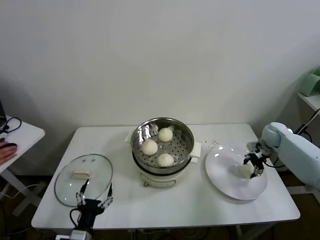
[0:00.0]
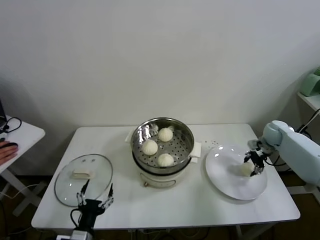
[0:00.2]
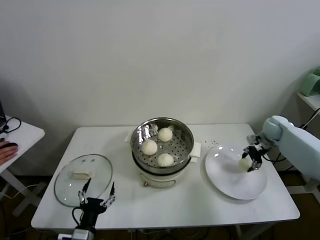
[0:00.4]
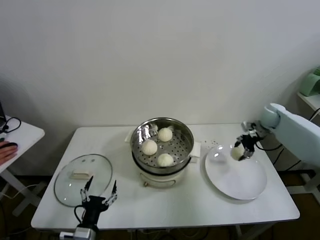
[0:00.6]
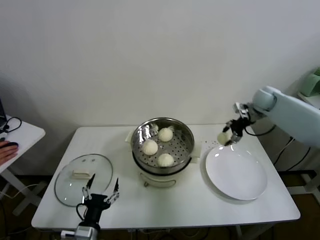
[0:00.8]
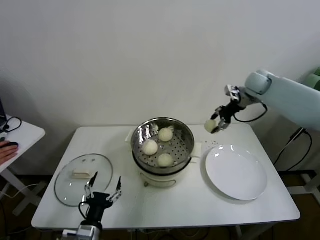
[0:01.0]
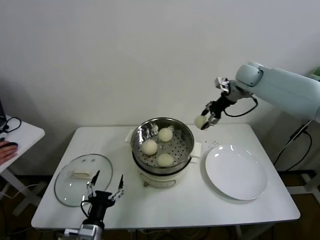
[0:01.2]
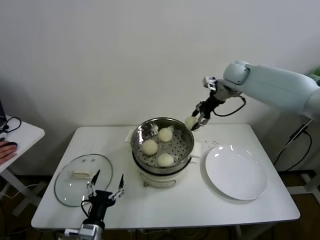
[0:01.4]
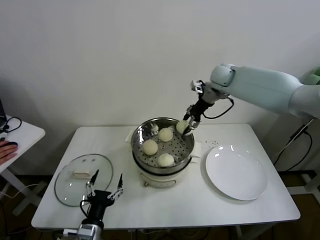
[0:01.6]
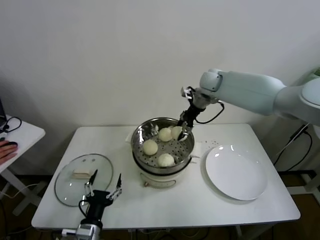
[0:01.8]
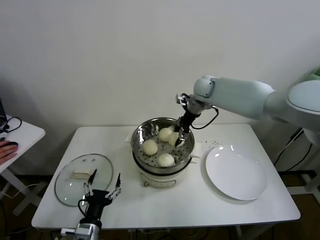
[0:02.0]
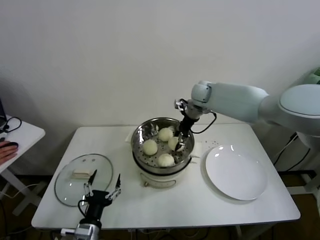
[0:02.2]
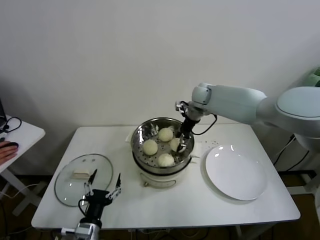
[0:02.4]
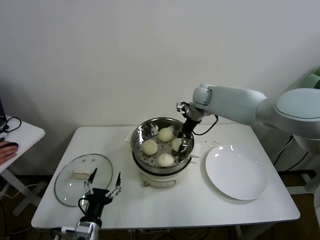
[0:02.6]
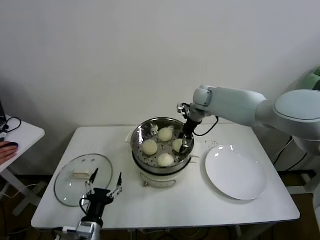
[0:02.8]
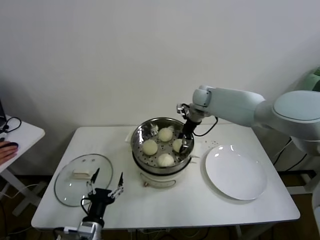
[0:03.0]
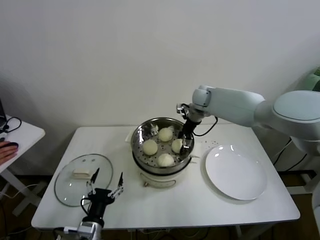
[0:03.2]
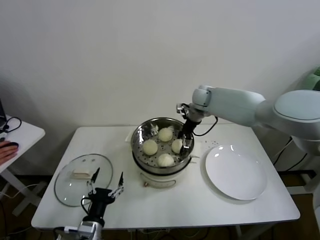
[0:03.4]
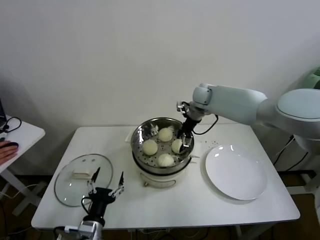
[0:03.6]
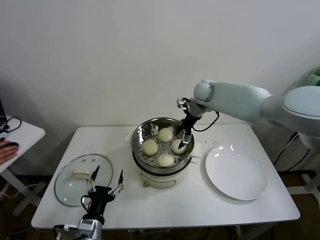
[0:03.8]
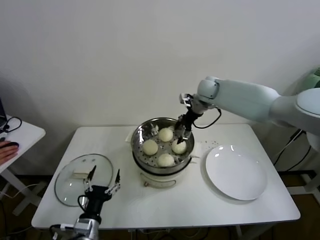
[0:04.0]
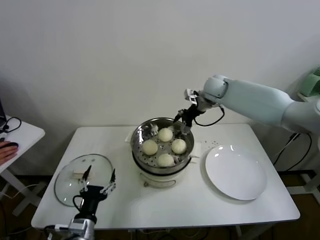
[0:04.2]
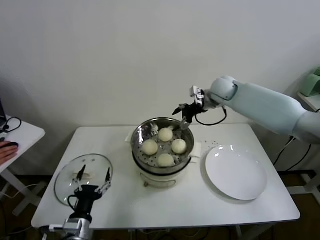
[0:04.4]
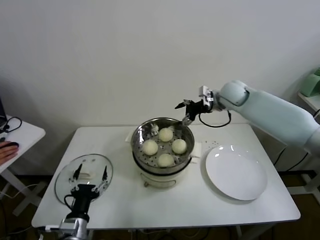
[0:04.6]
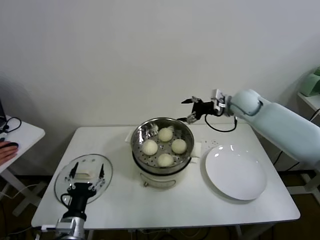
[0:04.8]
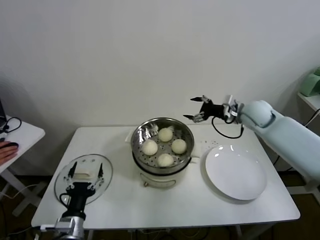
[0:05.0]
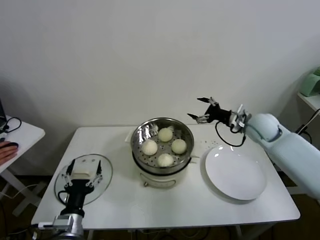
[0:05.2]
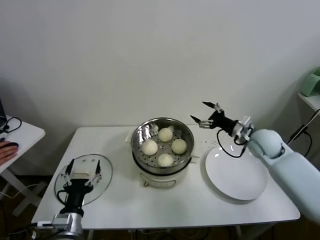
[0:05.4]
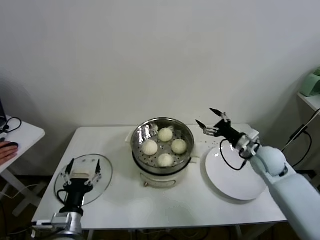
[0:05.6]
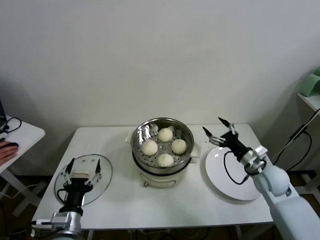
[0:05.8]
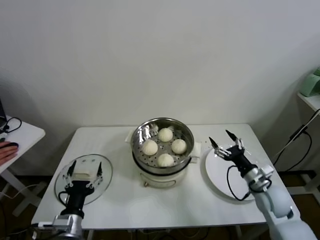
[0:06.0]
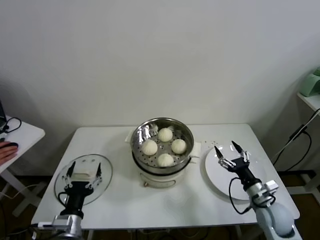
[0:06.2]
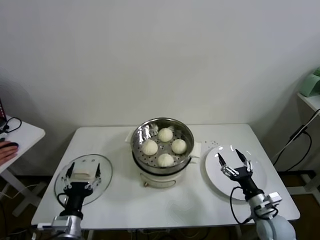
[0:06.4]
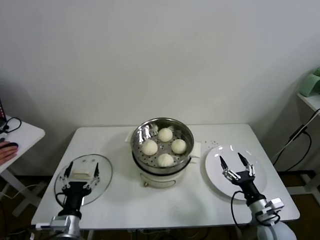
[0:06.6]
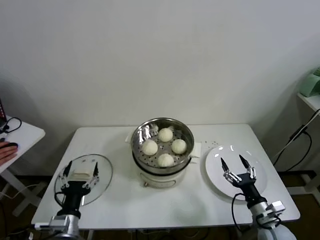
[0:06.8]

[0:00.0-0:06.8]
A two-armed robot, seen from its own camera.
Task of the whole recording: take steamed baozi put them in steamer.
Step, 0:00.0 to 0:03.6: Place the baozi on the steamer with right gripper.
0:00.0 to 0:01.4: The right gripper travels upward and to the left by some 30 cm.
0:01.4 to 0:02.8: The right gripper goes roughly 15 cm to the left and downward.
0:02.8 to 0:04.0: The right gripper opens.
0:04.0 to 0:05.4: The right gripper heads backward, to the right and downward, covering roughly 25 cm.
0:05.4 to 0:06.8: The right gripper heads backward and downward, covering about 30 cm.
